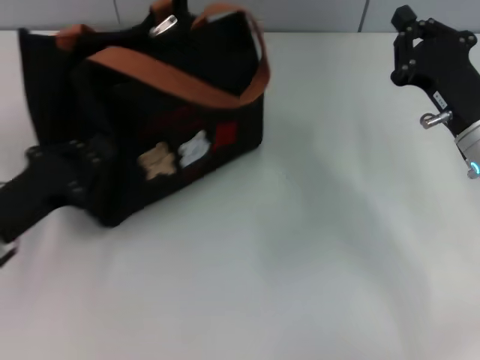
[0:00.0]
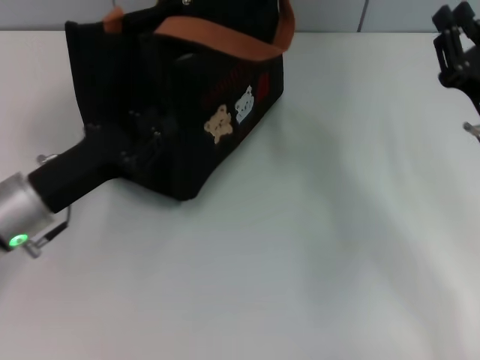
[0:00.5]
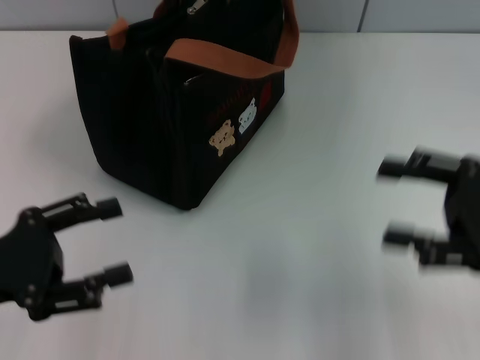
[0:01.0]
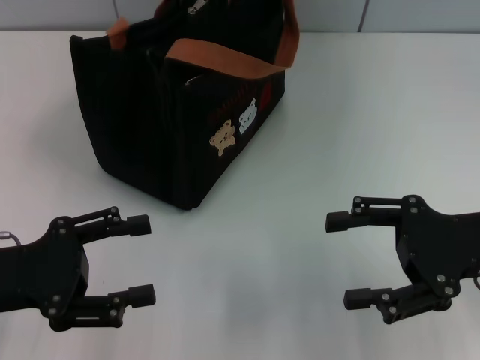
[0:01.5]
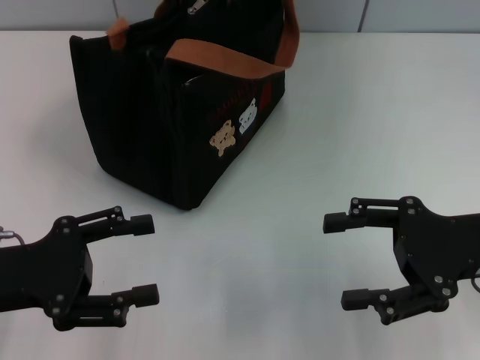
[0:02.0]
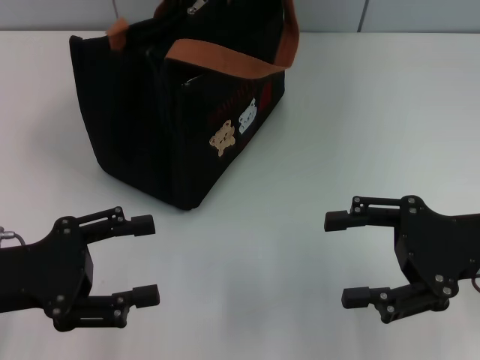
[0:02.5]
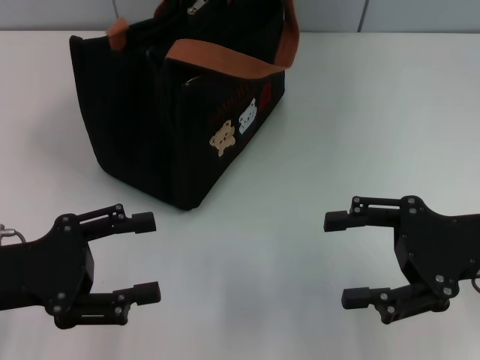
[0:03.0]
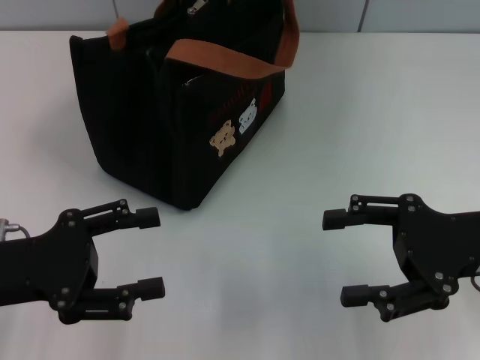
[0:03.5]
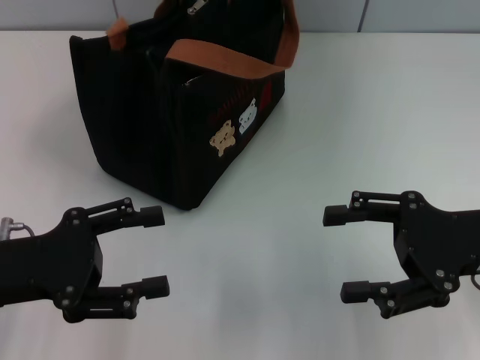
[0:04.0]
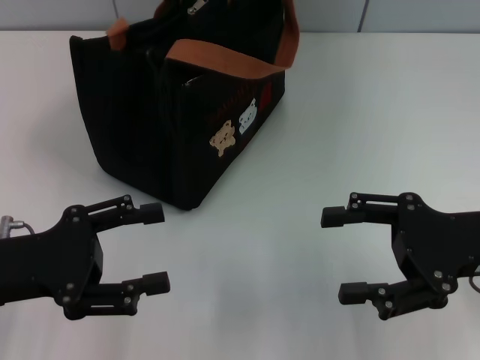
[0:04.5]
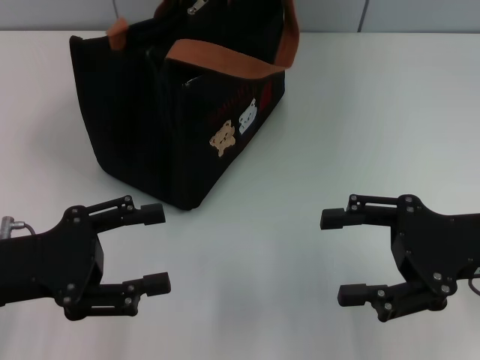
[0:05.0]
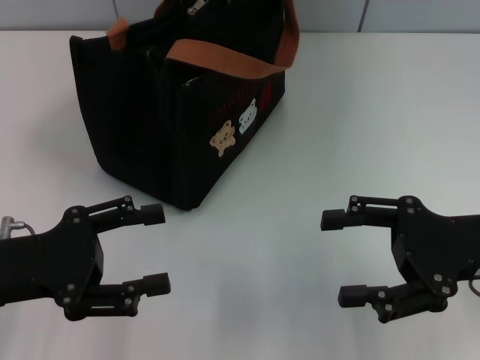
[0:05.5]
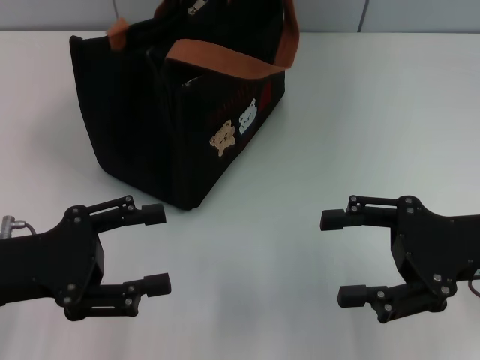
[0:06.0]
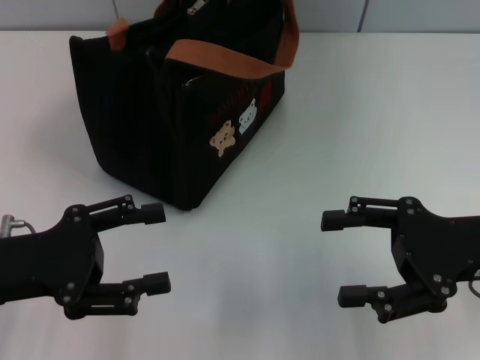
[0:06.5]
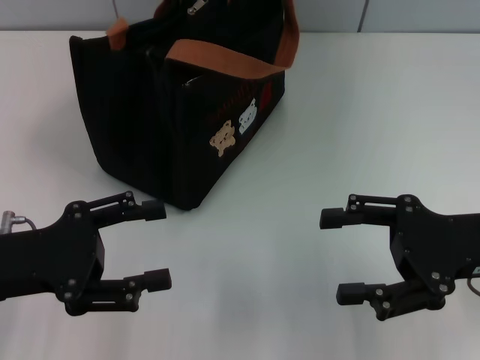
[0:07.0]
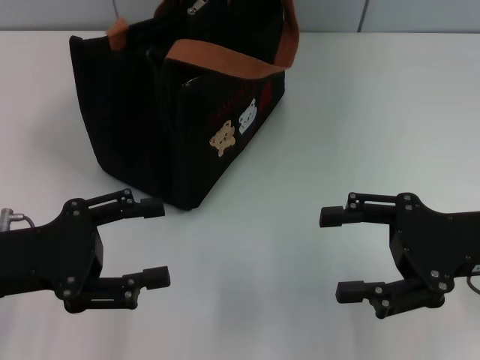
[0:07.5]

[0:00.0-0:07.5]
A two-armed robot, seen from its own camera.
0:00.0 to 0:02.0: The left gripper moves about 5 cm, and opens its fingers. The right gripper goes roughly 5 cm backward, and opens.
0:02.0 to 0:05.5: Both grippers stay put.
0:05.5 to 0:07.5: Both grippers stay put.

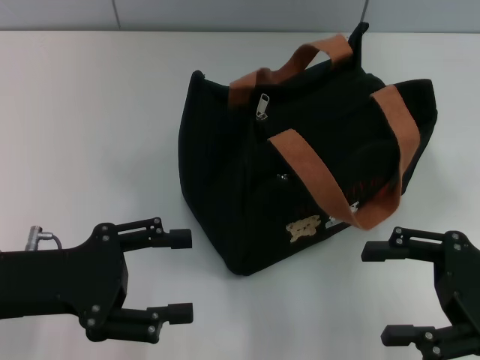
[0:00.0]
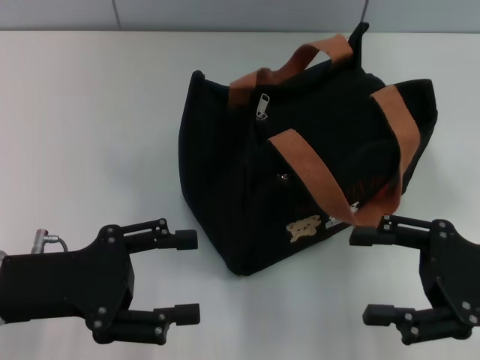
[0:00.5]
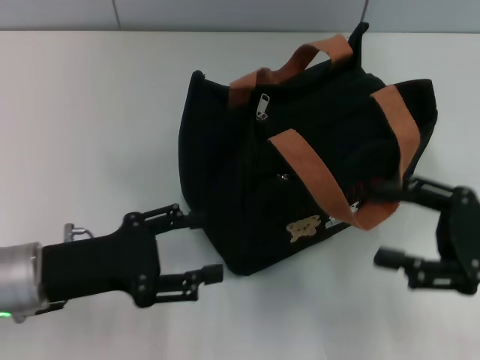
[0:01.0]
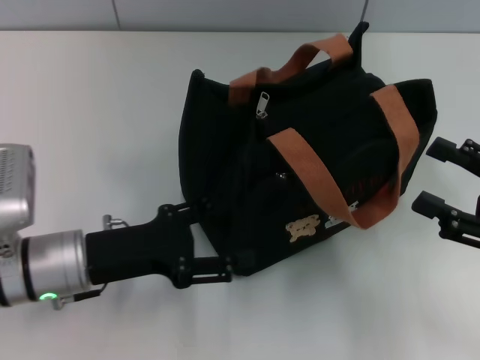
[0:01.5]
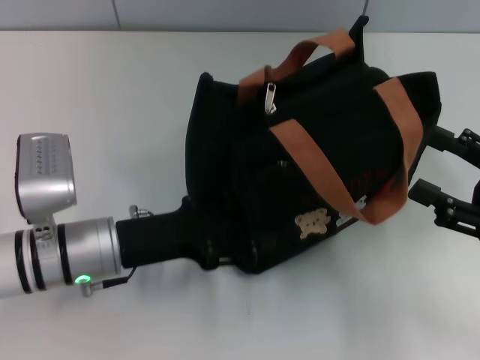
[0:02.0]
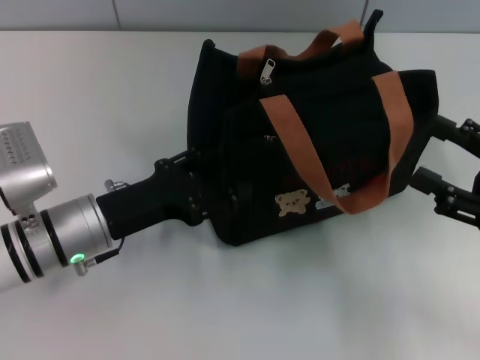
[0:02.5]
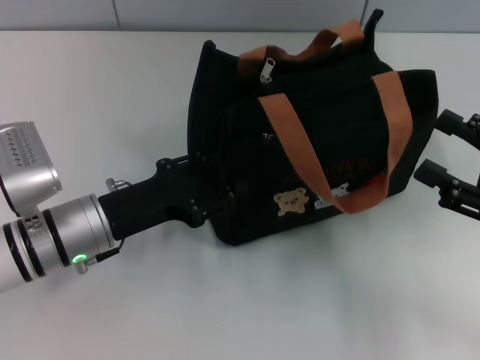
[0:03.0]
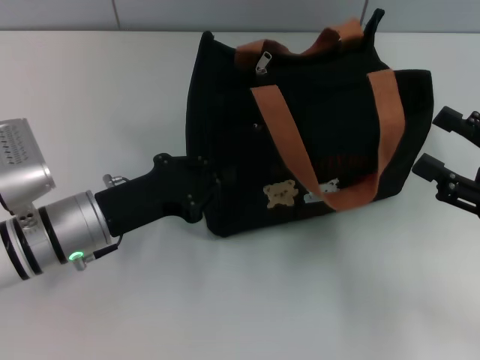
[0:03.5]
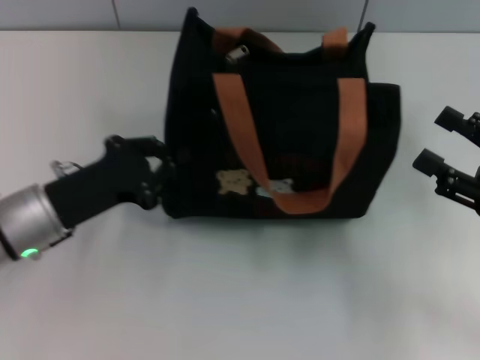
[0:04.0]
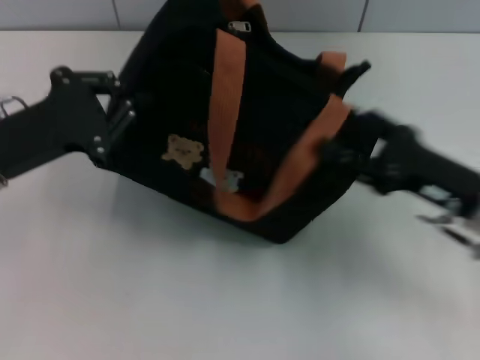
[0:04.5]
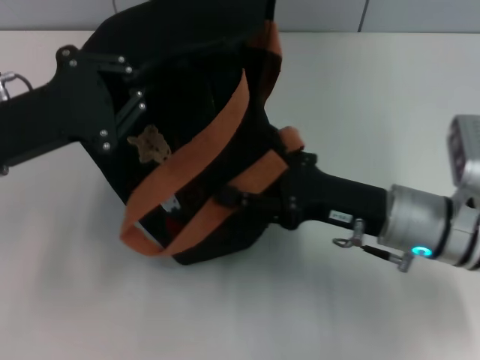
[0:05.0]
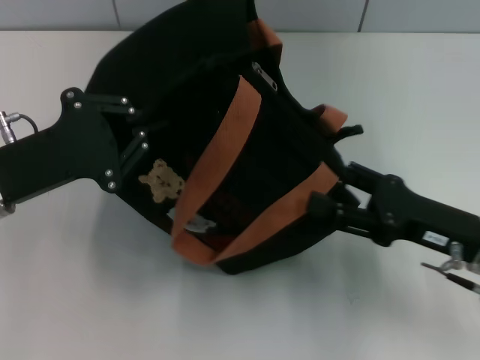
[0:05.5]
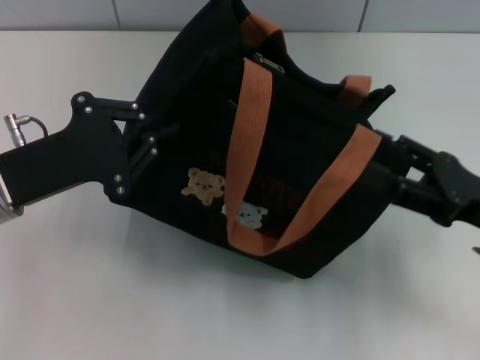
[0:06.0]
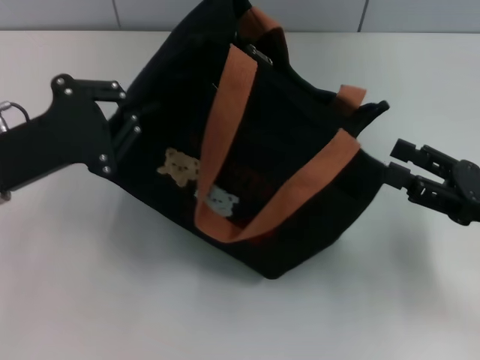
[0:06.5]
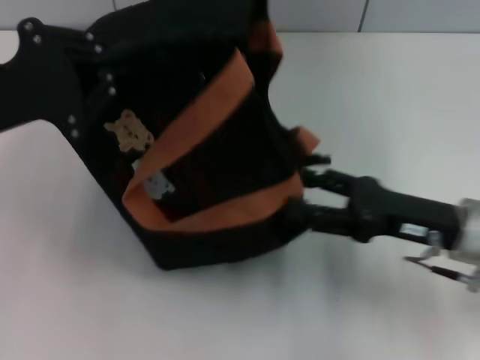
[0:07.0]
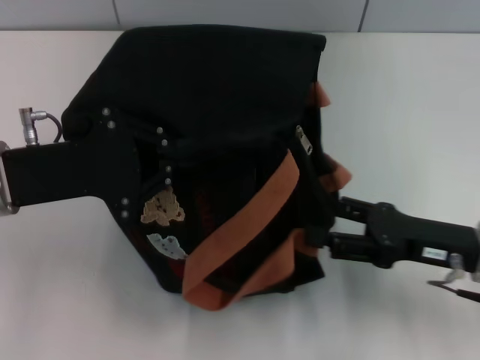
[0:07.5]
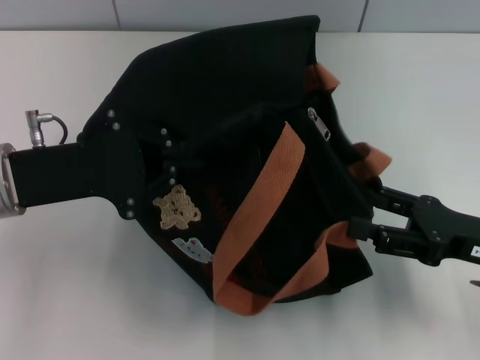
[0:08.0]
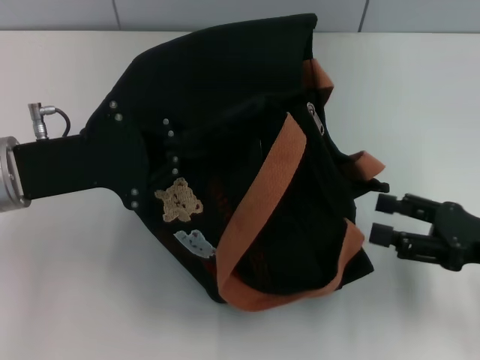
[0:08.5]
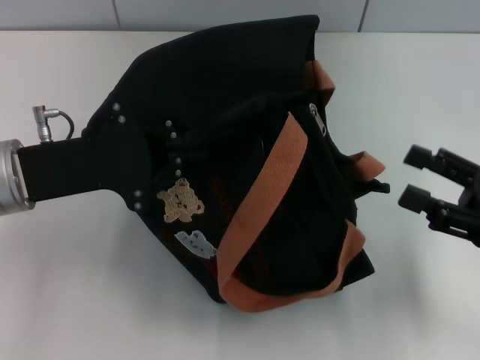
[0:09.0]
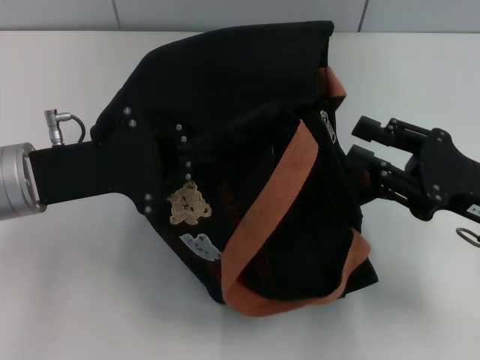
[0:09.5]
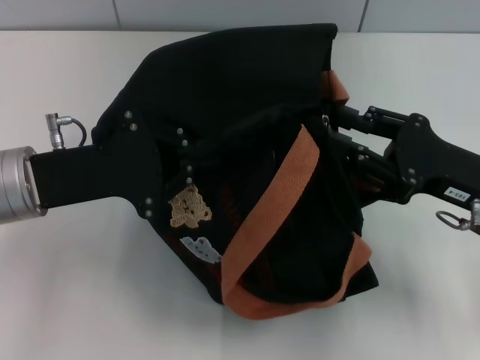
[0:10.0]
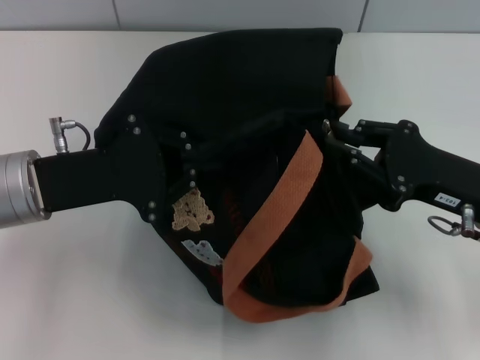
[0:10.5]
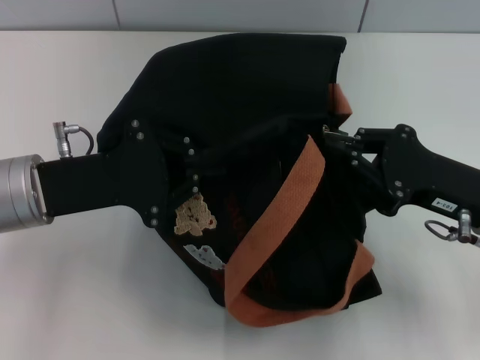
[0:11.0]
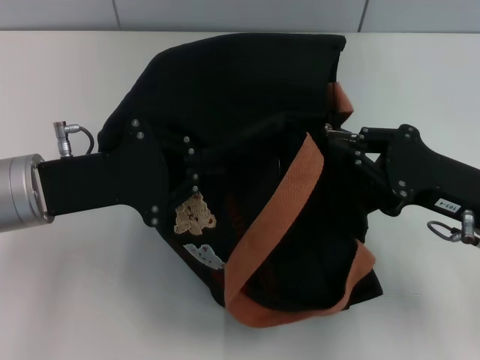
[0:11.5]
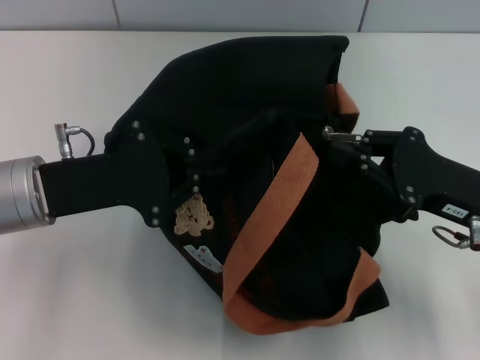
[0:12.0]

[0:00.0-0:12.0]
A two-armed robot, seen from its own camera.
0:00.0 to 0:02.0: The left gripper moves to the right and downward, roughly 10 cm.
0:02.0 to 0:04.0: The left gripper moves to the left, approximately 5 cm, and closes its fingers.
0:04.0 to 0:06.0: The left gripper is displaced upward by roughly 5 cm. The right gripper goes to the left and returns, some 15 cm each way.
0:06.0 to 0:08.0: The right gripper moves roughly 5 cm to the left and comes back.
0:08.0 to 0:10.0: The right gripper ends up some 5 cm from where it was, and closes up.
0:10.0 to 0:12.0: The right gripper closes up.

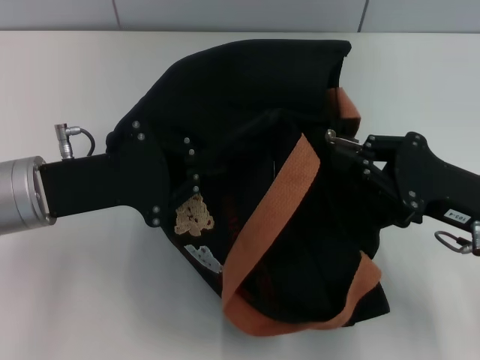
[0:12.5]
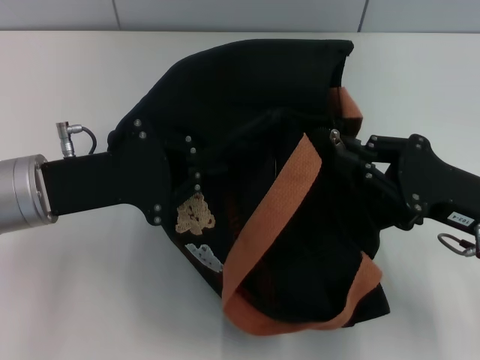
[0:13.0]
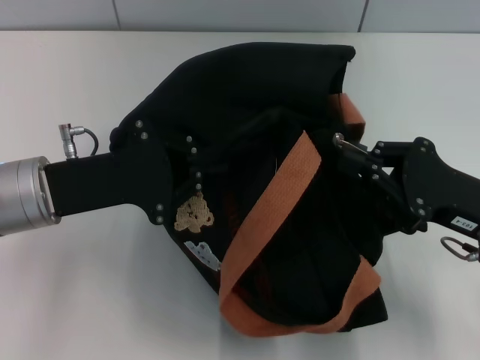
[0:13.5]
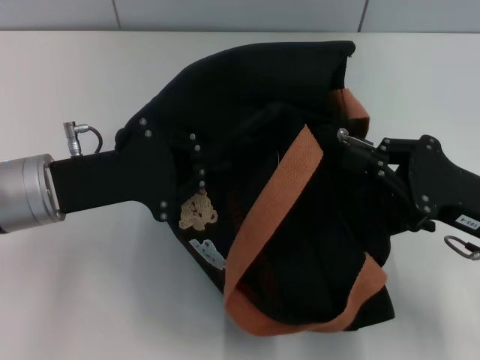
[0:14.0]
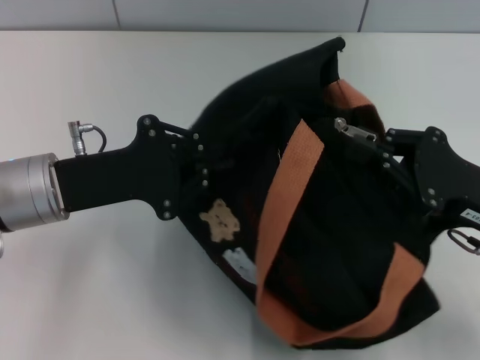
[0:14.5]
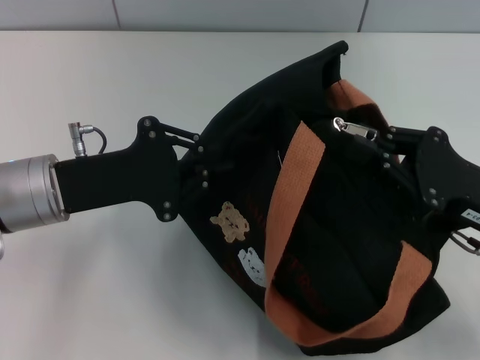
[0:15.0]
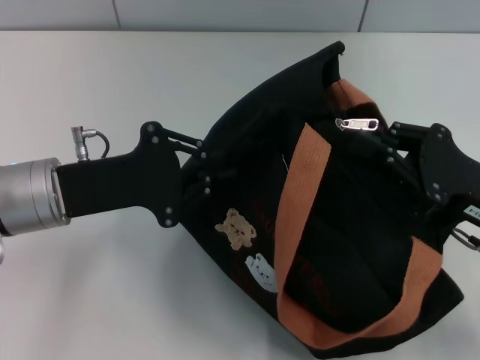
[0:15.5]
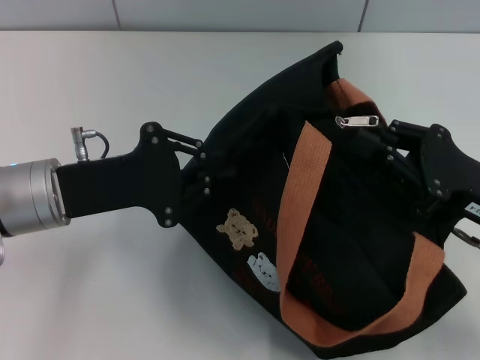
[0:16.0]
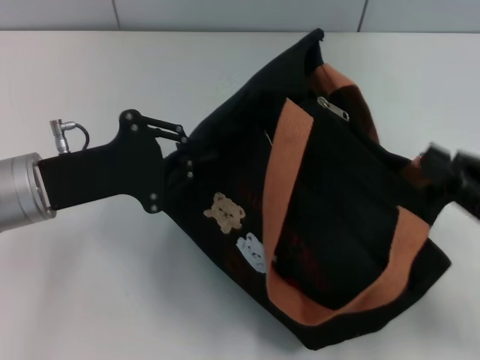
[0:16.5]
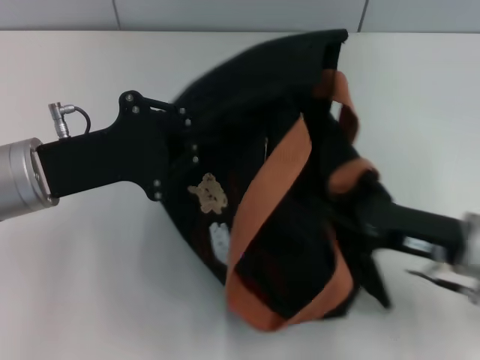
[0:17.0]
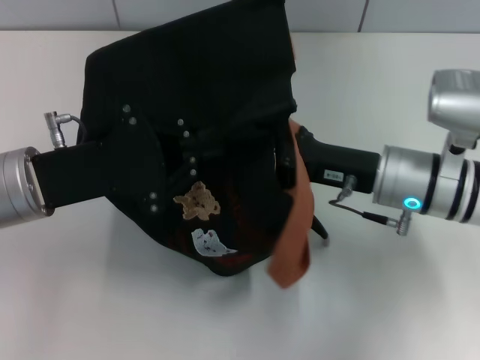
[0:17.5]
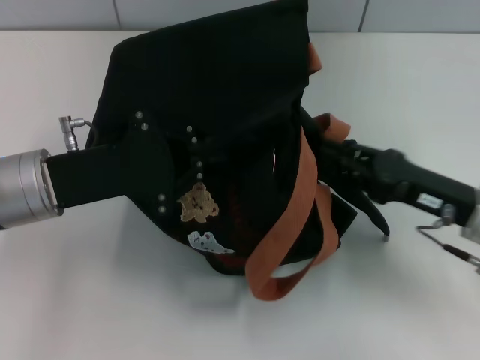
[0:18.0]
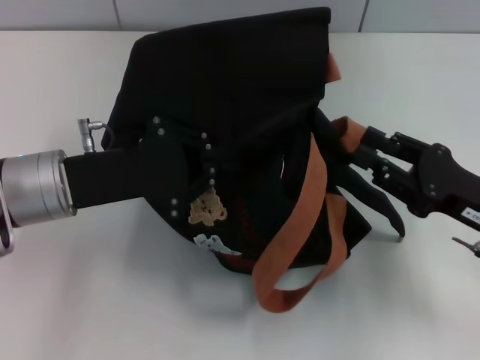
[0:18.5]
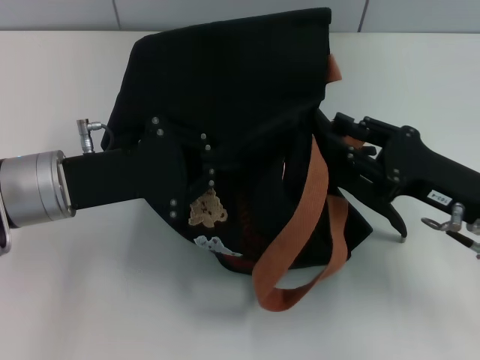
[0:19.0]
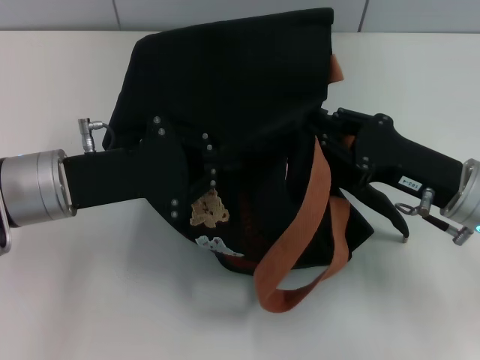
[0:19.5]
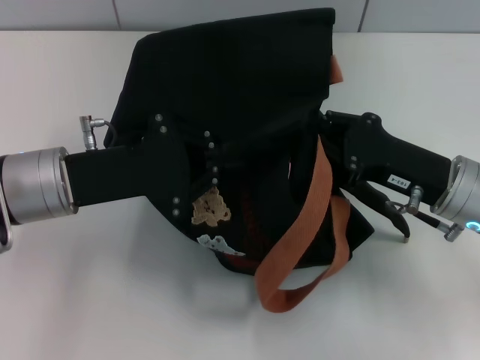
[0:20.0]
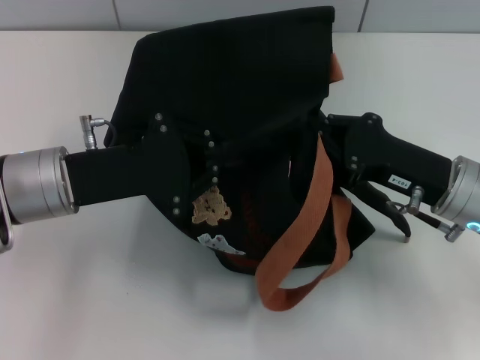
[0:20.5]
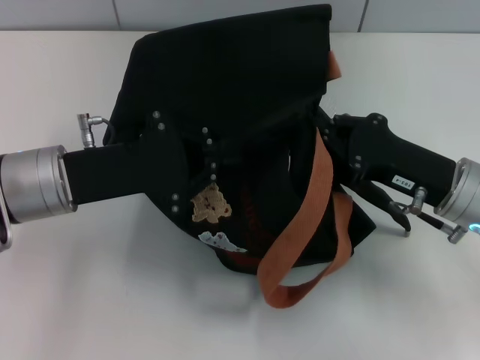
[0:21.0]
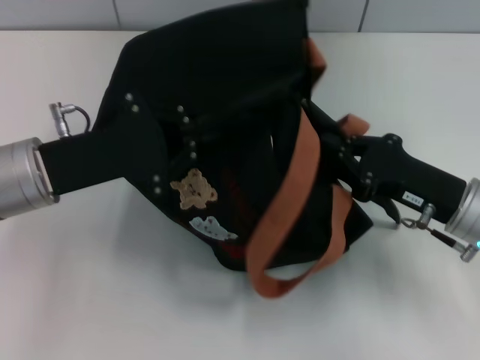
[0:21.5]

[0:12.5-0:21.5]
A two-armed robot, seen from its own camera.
0:14.5 to 0:17.0: The right gripper travels to the right and back again, about 5 cm each way.
0:17.0 to 0:19.5: The right gripper moves left and right over some 10 cm, changing direction 2 times.
0:19.5 to 0:21.5: The right gripper closes up.
